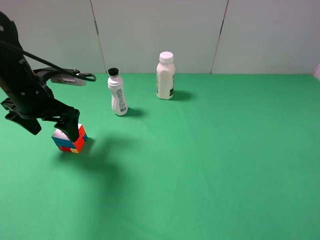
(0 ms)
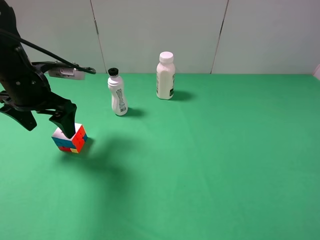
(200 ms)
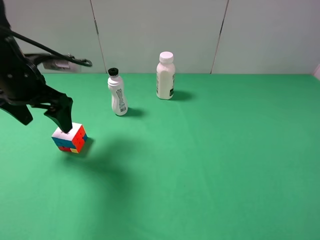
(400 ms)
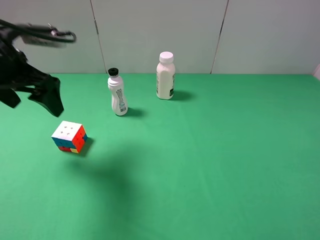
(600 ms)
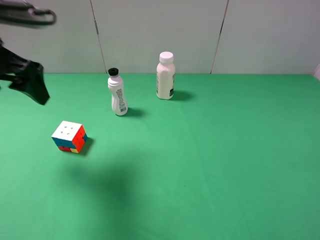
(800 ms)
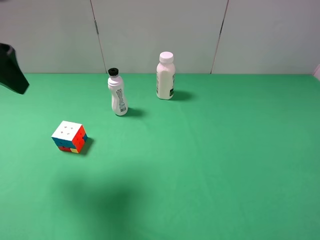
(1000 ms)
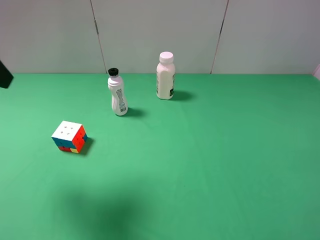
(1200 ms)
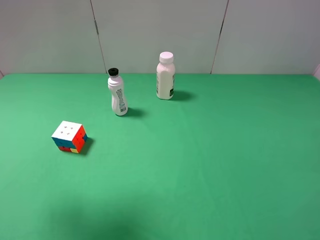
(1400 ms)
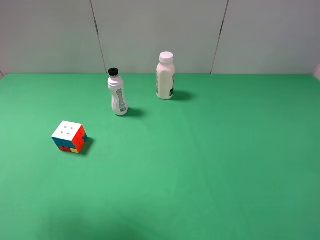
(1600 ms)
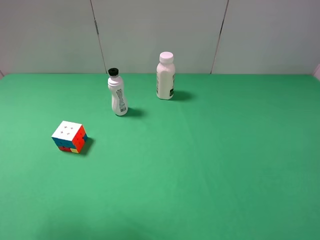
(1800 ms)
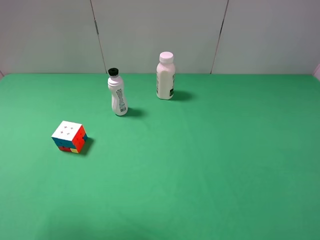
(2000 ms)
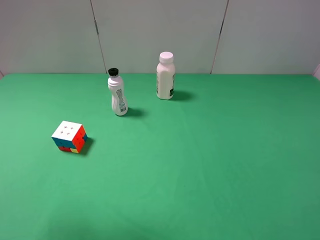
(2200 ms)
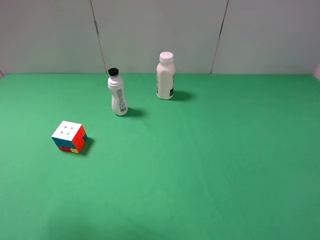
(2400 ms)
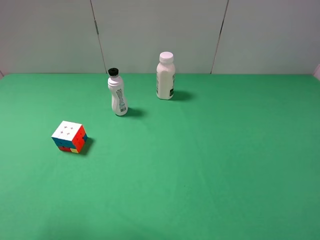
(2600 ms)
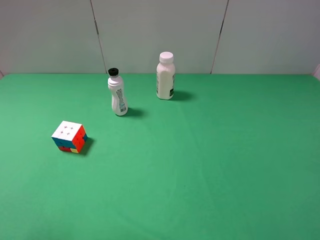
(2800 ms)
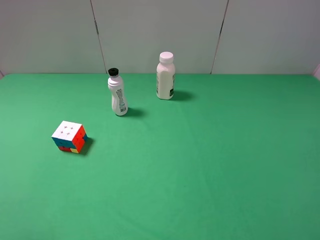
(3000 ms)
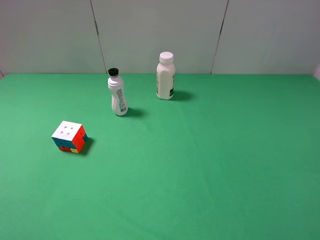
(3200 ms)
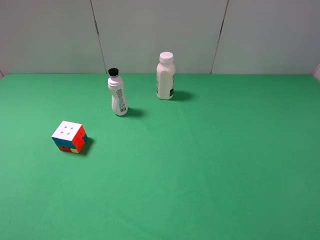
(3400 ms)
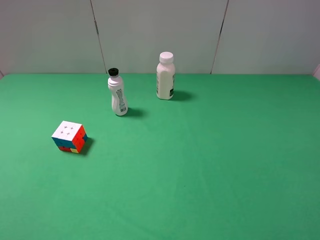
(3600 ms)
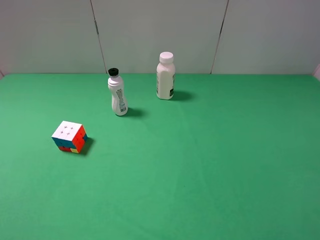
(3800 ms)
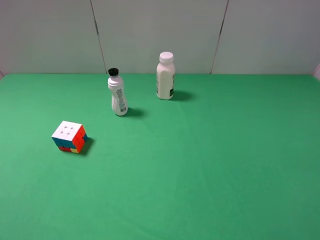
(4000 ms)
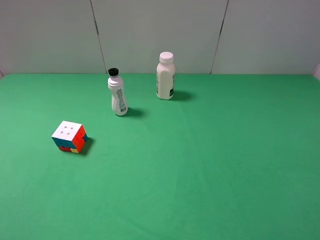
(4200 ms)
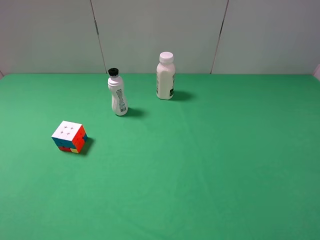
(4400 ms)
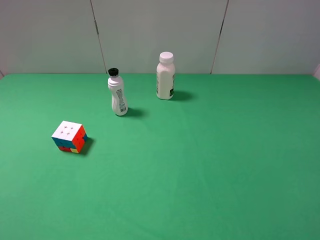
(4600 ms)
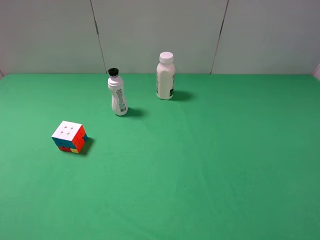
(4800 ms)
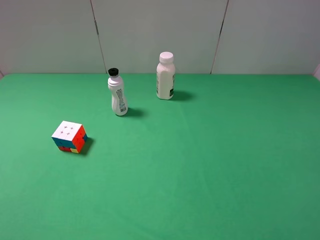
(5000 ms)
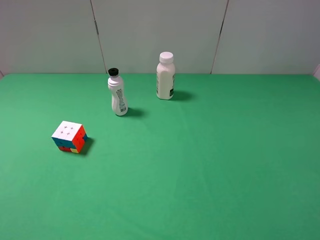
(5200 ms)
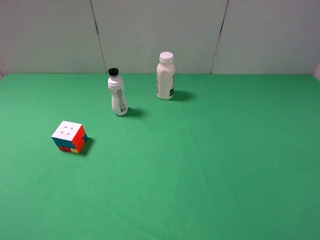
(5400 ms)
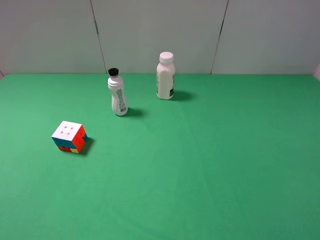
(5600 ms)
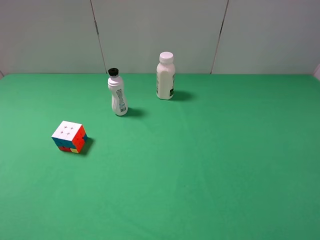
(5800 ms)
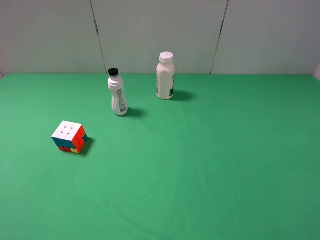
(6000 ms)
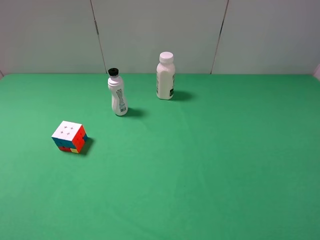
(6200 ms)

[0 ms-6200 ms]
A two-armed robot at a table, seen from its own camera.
Task of the whole recording: use the right gripper to pick up the item and transfer it from the right gripper to the left gripper.
0 ms to 1600 ms: The left gripper heads upward and backward, covering roughly 25 cm.
1600 ms to 3200 ms: The left gripper shifts some 10 cm backward and downward.
4600 ms to 6200 ms: Neither gripper changes place.
